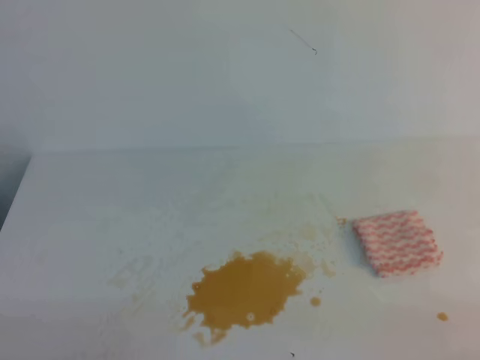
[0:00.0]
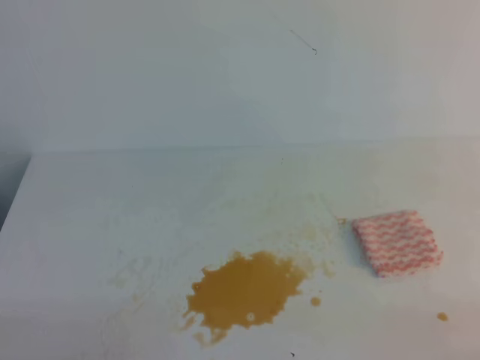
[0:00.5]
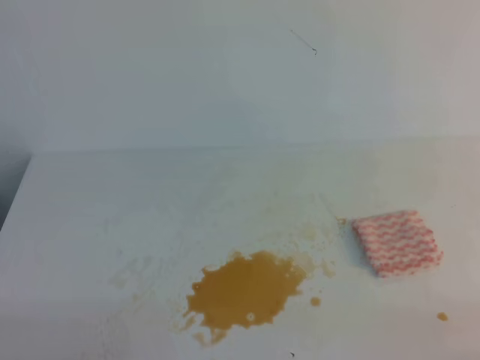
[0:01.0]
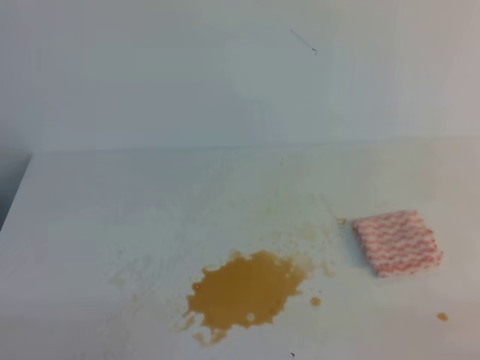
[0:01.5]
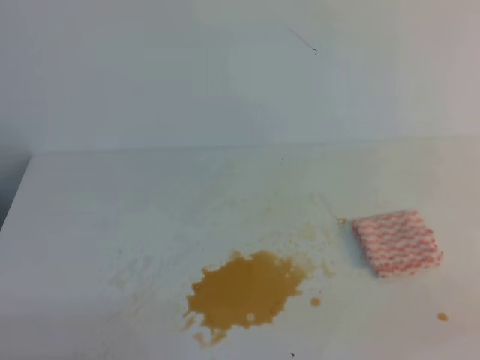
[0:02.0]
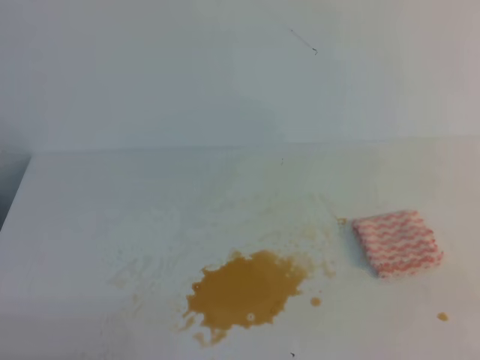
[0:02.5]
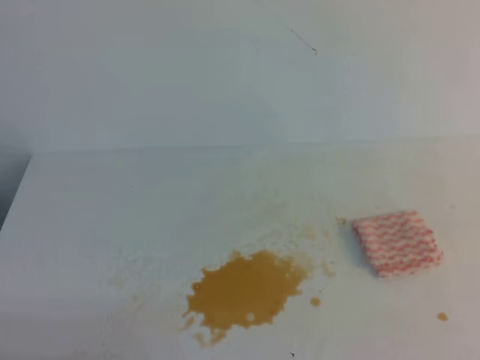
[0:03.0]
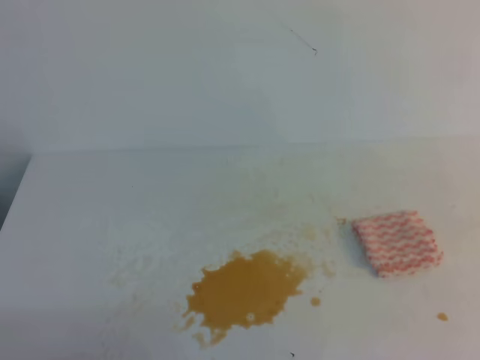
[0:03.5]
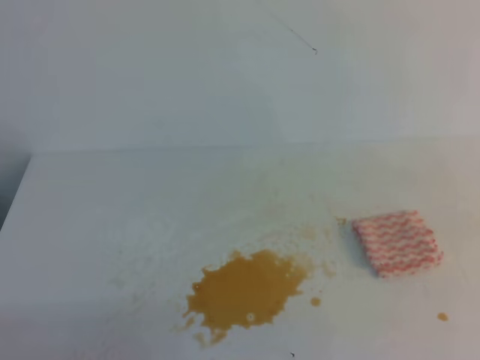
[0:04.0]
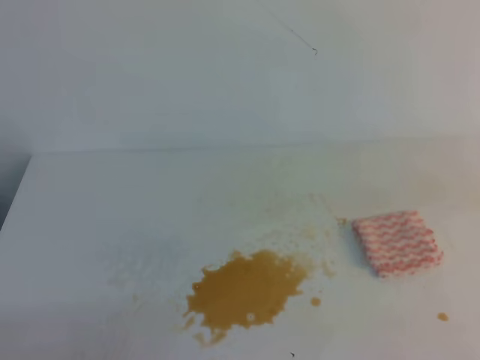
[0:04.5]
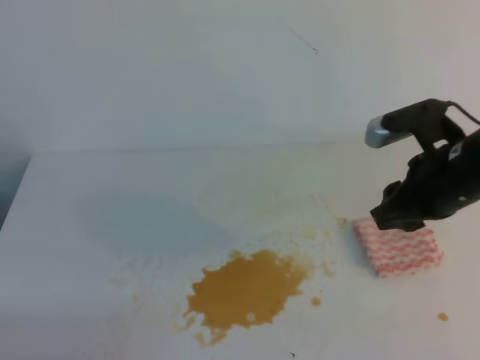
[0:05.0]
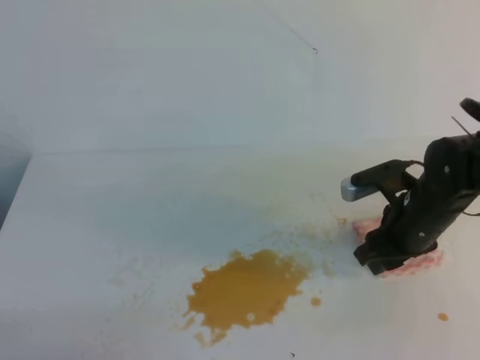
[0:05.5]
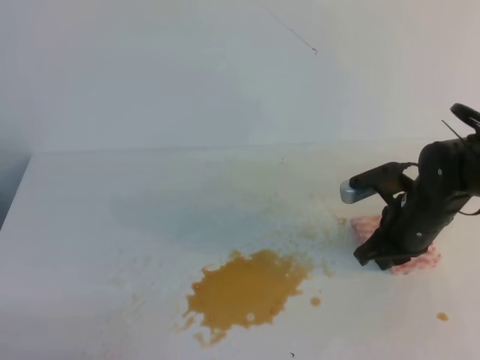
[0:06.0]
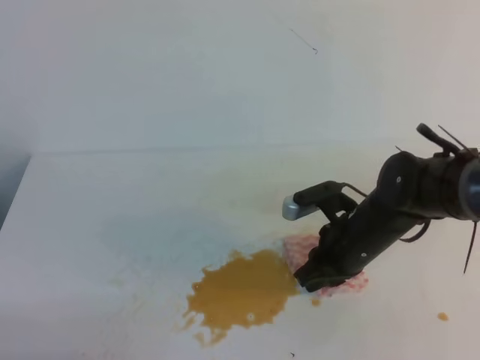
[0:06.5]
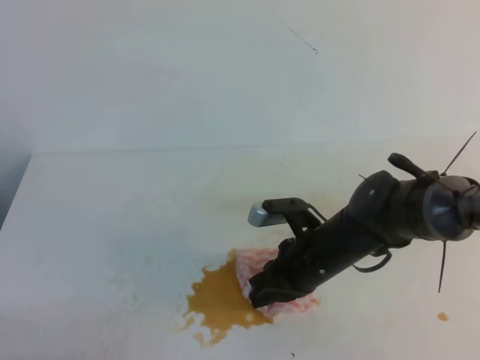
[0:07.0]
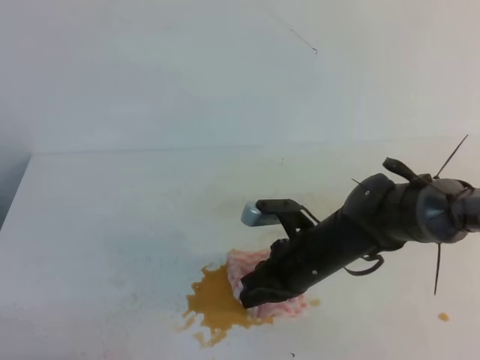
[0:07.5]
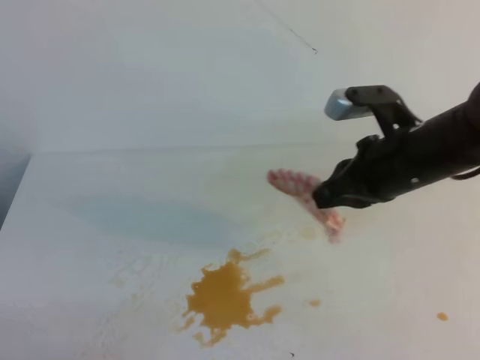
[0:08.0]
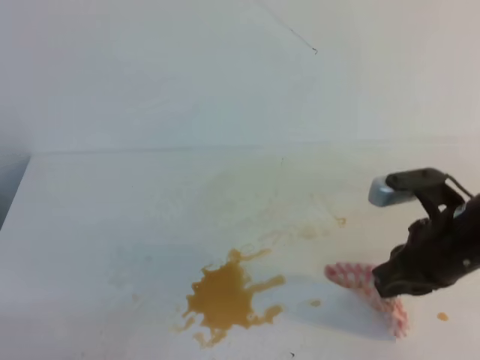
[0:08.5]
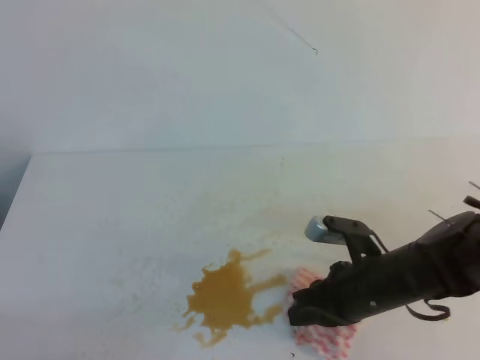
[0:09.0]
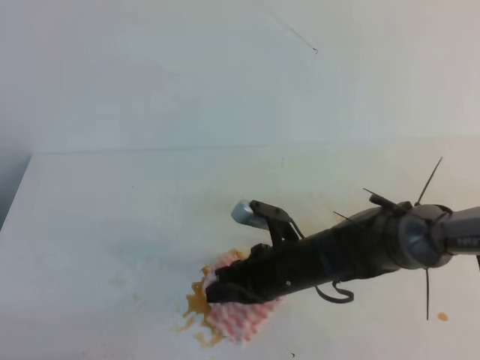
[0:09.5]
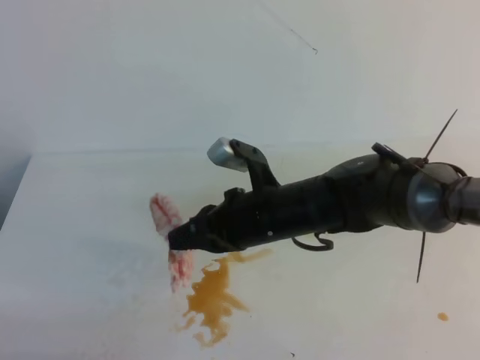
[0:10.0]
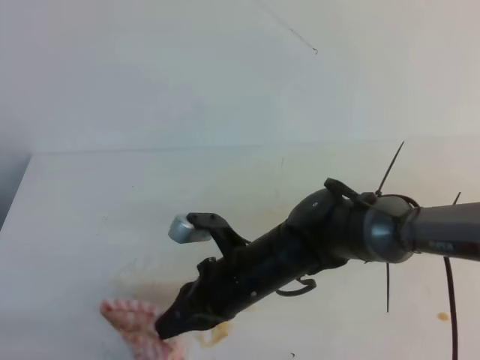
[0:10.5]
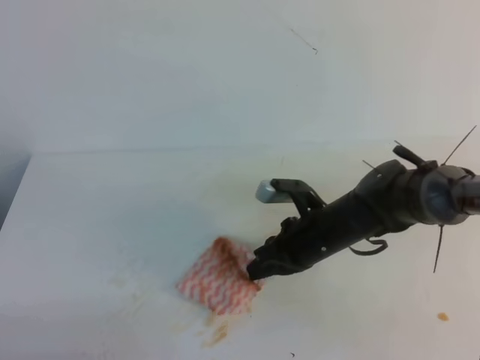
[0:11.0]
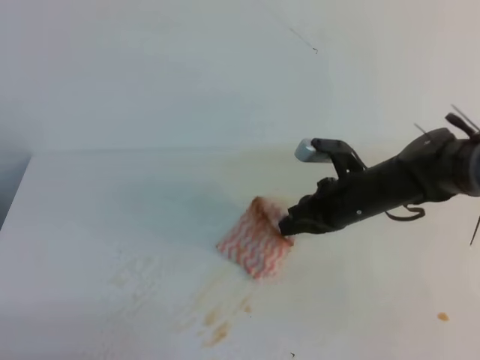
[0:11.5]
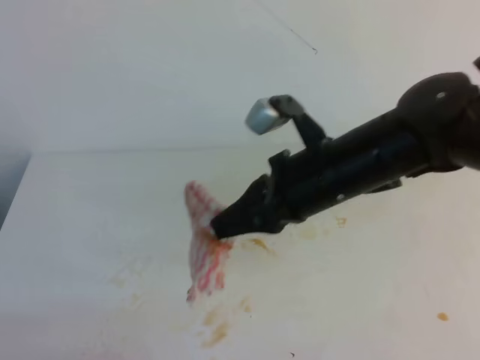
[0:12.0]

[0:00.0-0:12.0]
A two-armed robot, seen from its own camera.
0:04.0 to 0:06.0: The right gripper heads forward, downward and to the left, covering about 30 cm, and opens.
0:06.0 to 0:08.0: The right gripper shifts some 10 cm upward, and closes up.
0:08.0 to 0:10.0: The right gripper moves to the left and downward, some 15 cm.
0:10.0 to 0:12.0: The right gripper travels upward and to the right by some 10 cm.

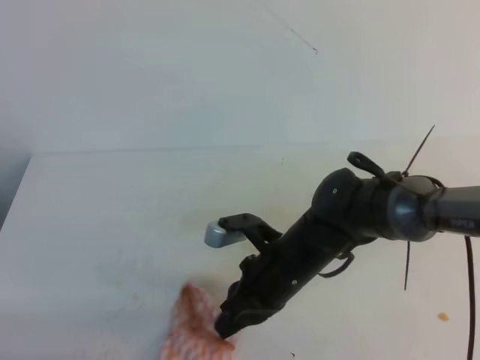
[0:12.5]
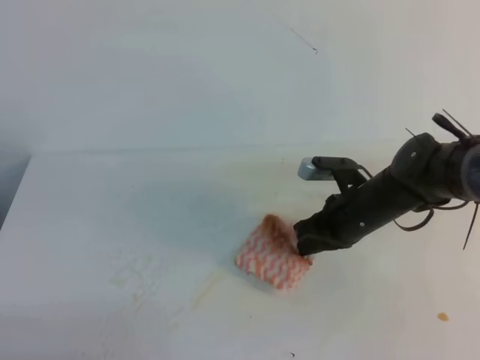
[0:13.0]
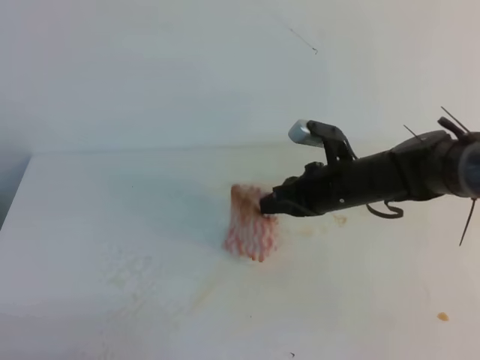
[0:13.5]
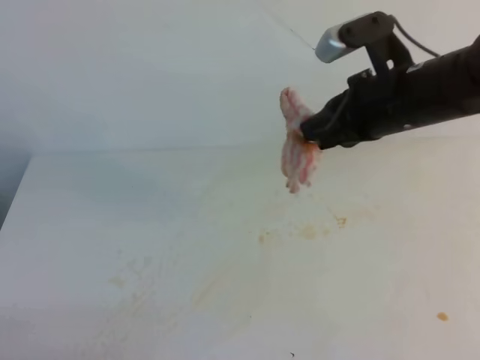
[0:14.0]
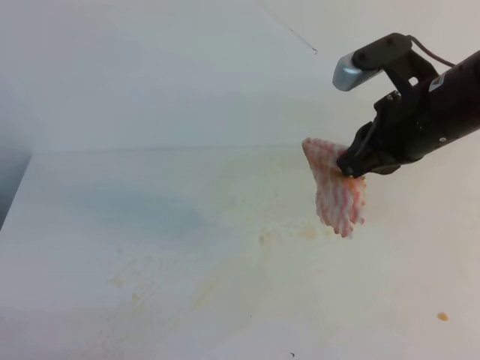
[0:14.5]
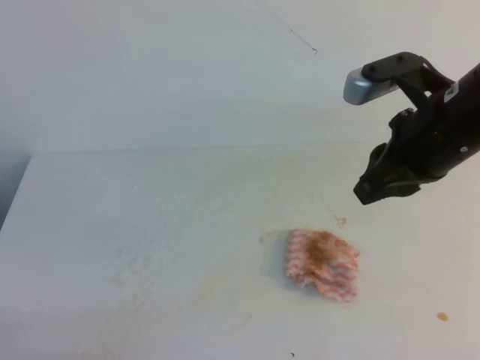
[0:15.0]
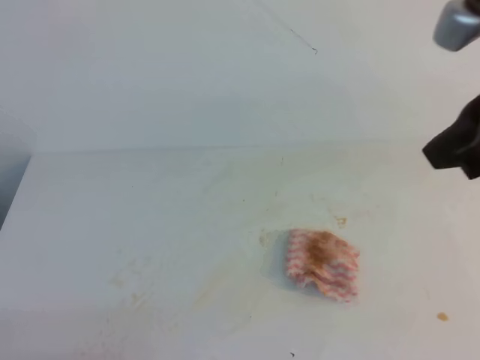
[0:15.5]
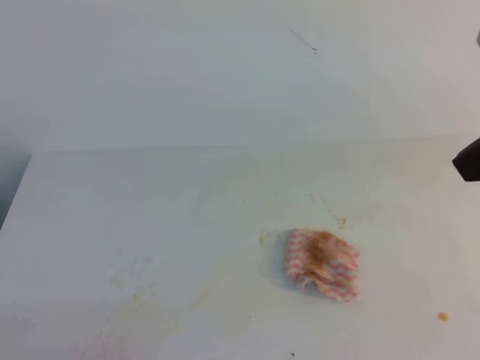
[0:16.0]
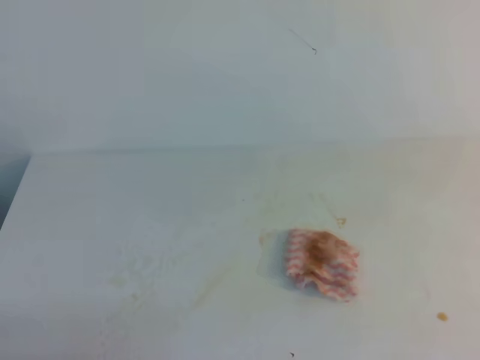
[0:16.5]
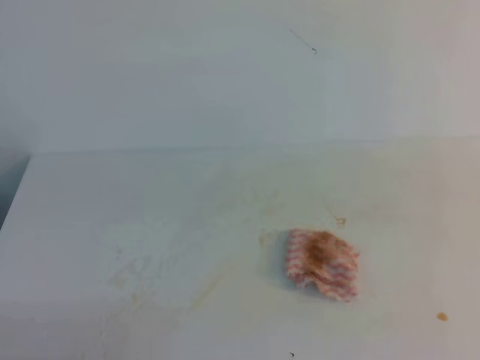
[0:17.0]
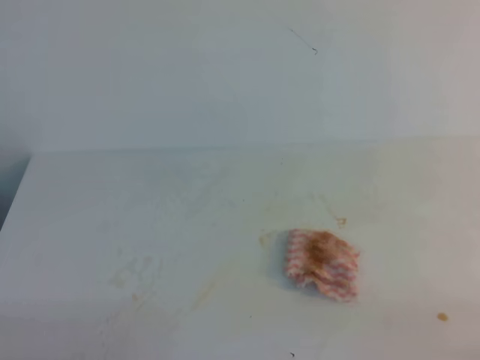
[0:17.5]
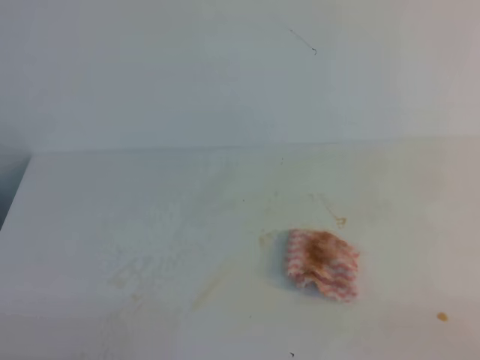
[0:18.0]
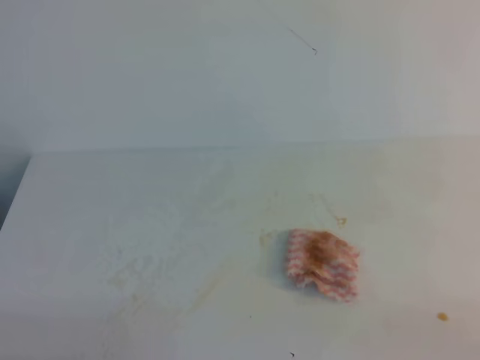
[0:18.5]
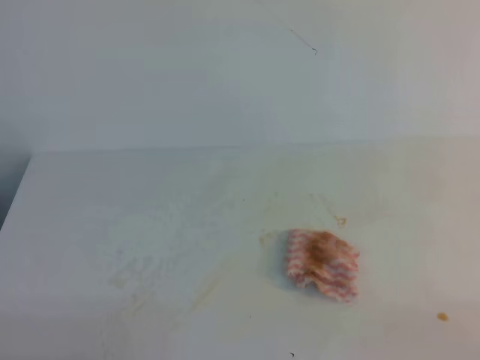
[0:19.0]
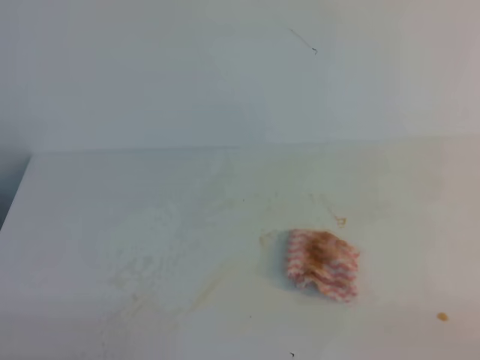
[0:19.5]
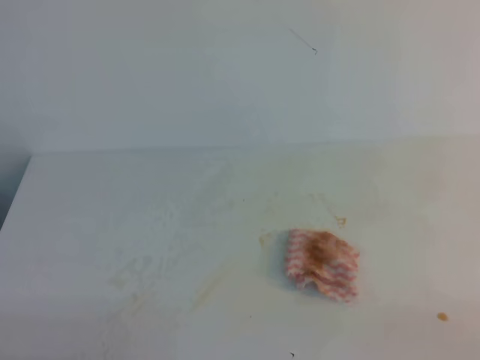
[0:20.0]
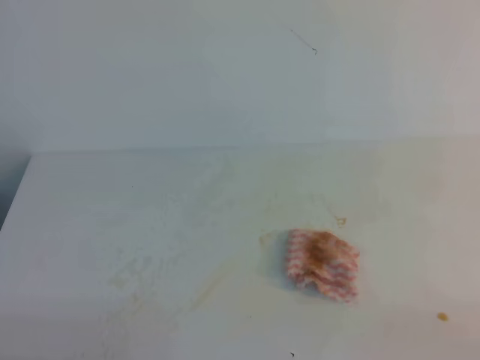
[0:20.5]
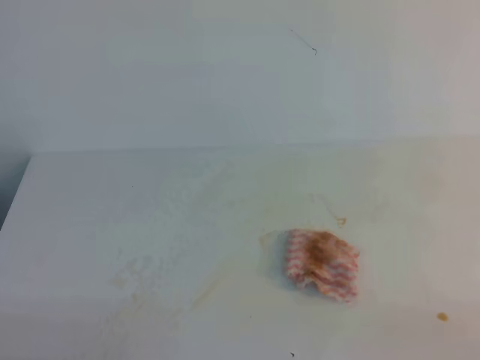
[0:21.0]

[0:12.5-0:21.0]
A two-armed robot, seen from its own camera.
0:12.5 to 0:14.5: The right gripper shifts some 20 cm upward and to the right.
0:14.5 to 0:16.5: The right gripper shifts roughly 30 cm backward, upward and to the right.
0:19.0 to 0:21.0: Neither gripper changes place.

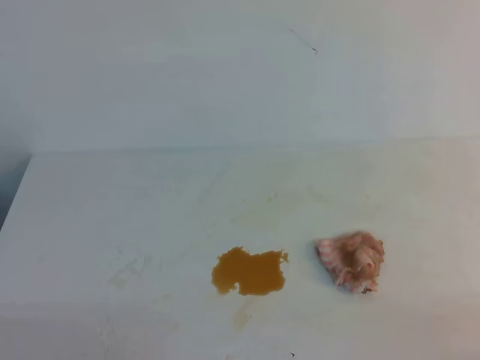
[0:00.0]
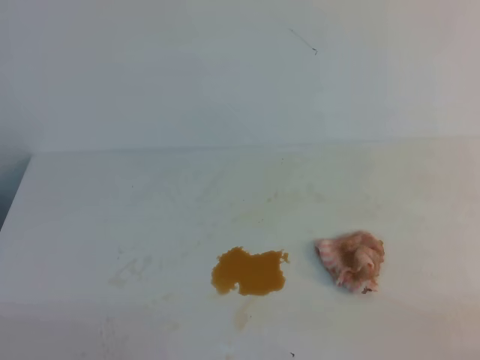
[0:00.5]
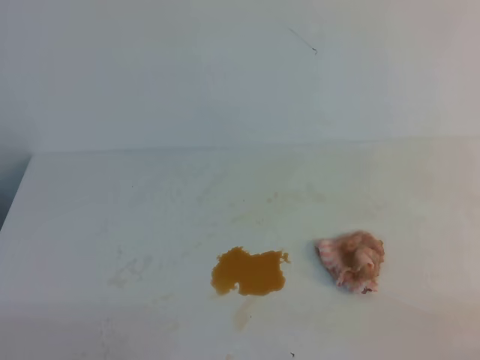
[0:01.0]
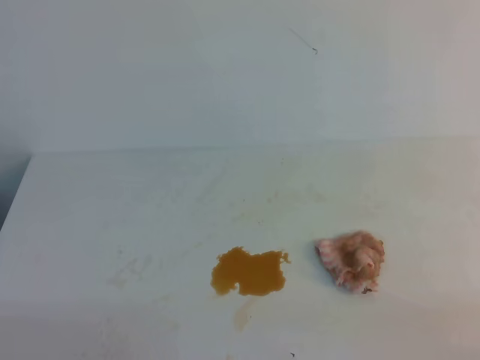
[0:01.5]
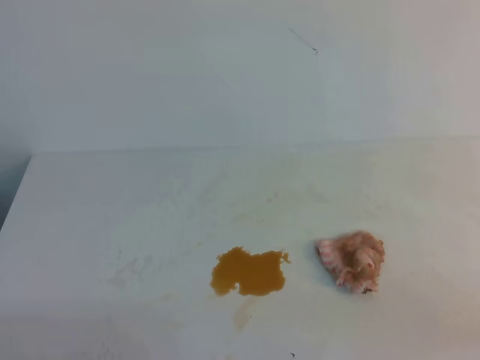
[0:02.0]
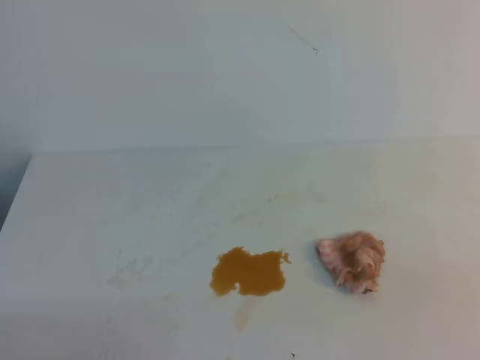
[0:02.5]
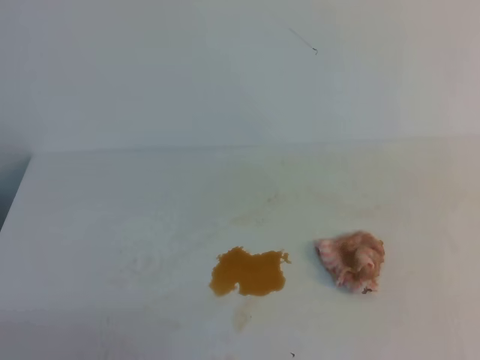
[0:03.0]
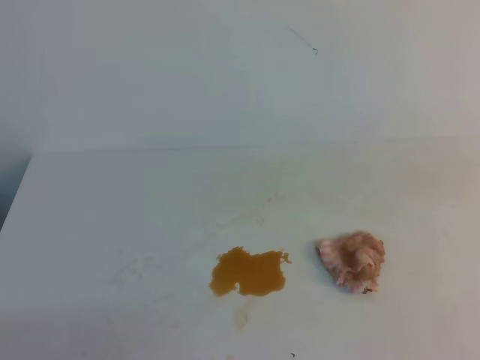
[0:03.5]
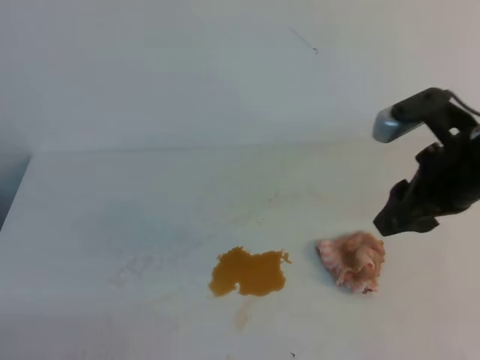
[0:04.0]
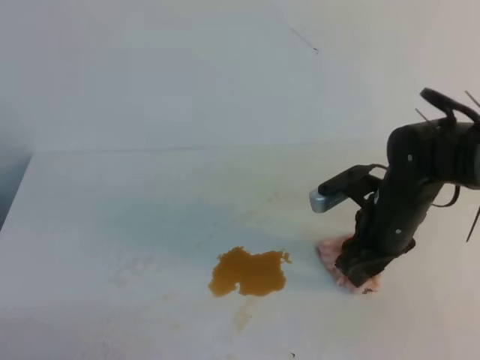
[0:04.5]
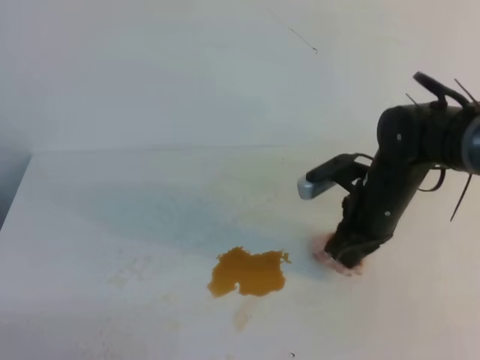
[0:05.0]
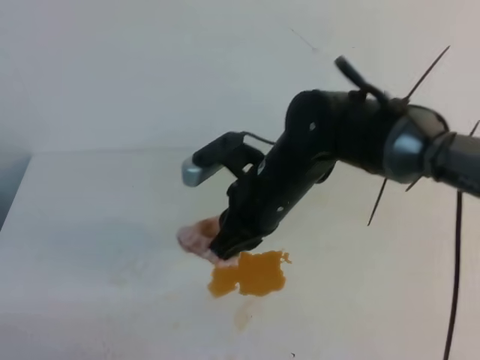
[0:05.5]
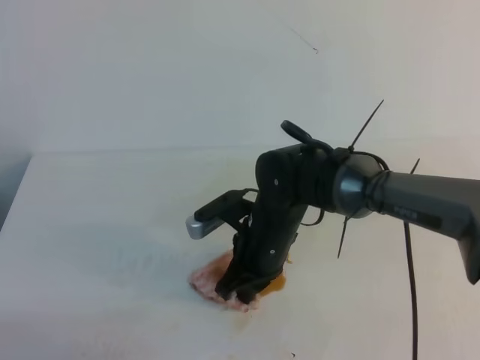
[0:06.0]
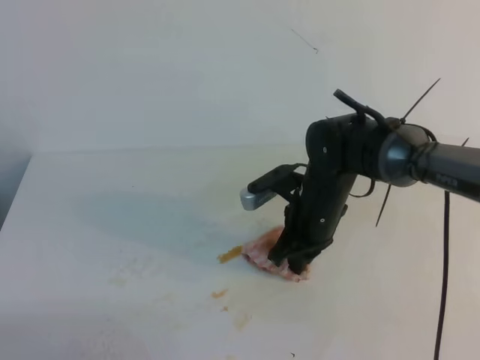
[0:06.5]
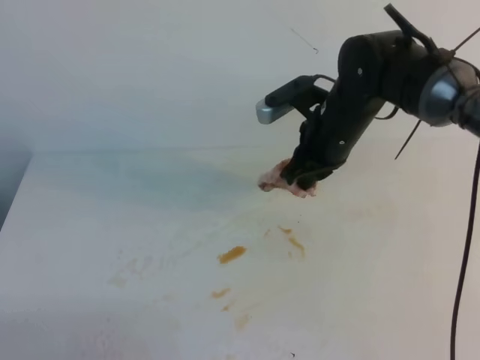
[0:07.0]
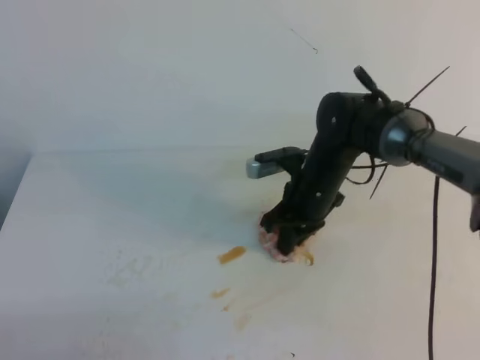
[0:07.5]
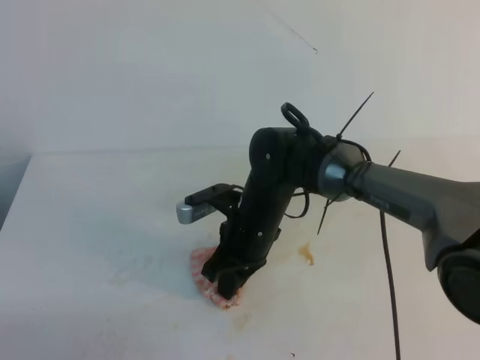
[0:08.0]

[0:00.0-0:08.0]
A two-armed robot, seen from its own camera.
0:02.0 to 0:04.0: The right gripper moves forward and to the left, about 25 cm, and opens up.
0:04.0 to 0:06.0: The right gripper is displaced to the left and downward by about 25 cm, and closes.
0:06.0 to 0:08.0: The right gripper goes to the right and returns, about 10 cm each way.
